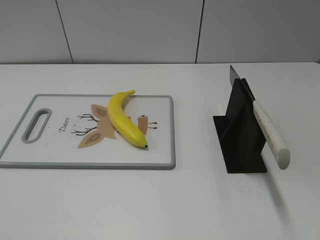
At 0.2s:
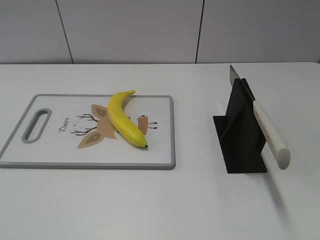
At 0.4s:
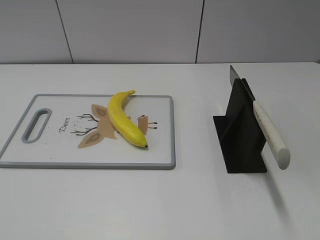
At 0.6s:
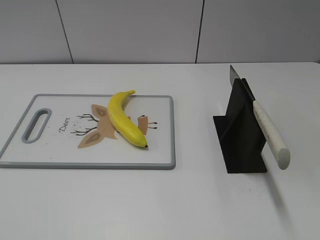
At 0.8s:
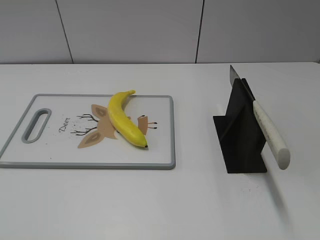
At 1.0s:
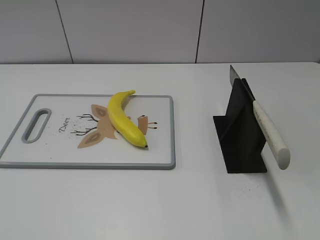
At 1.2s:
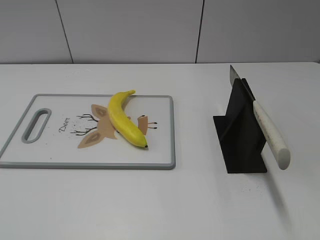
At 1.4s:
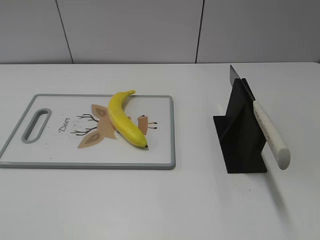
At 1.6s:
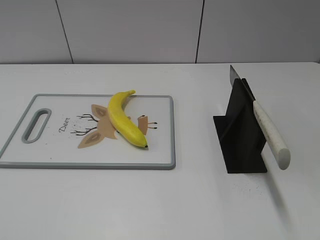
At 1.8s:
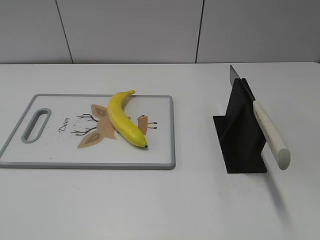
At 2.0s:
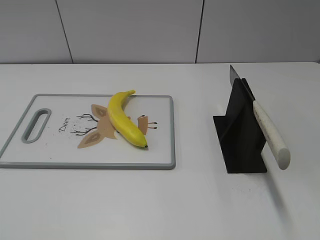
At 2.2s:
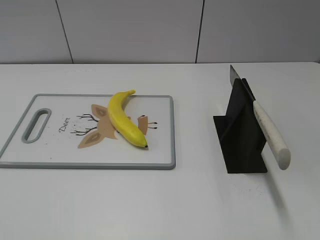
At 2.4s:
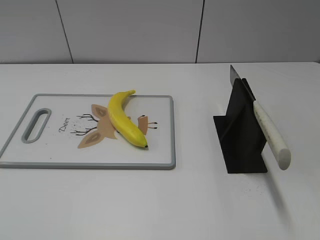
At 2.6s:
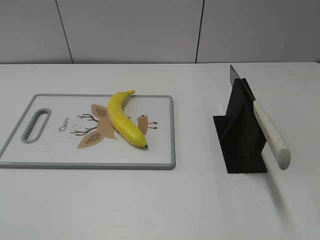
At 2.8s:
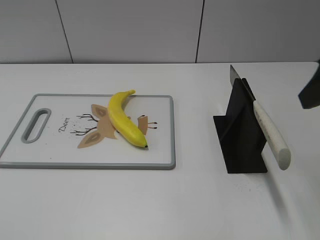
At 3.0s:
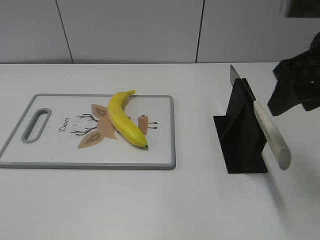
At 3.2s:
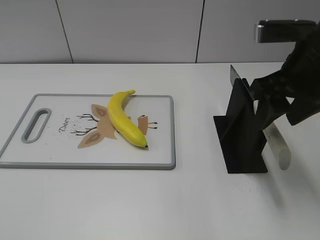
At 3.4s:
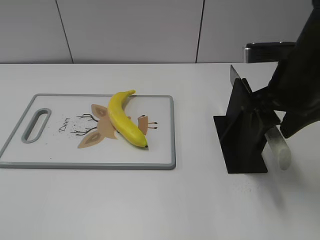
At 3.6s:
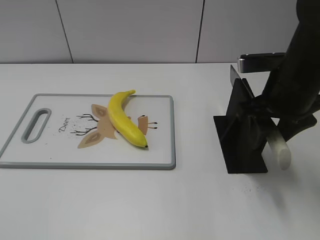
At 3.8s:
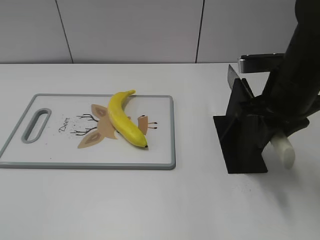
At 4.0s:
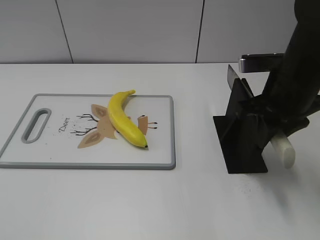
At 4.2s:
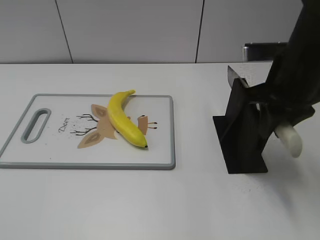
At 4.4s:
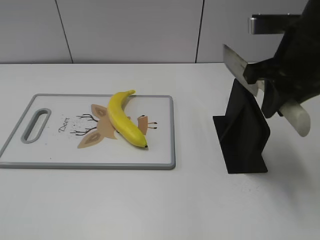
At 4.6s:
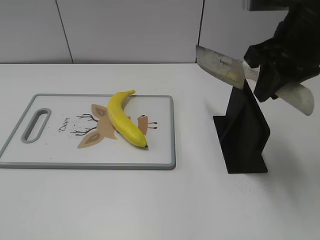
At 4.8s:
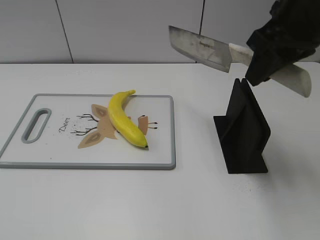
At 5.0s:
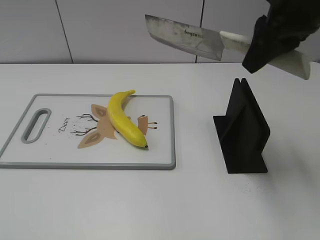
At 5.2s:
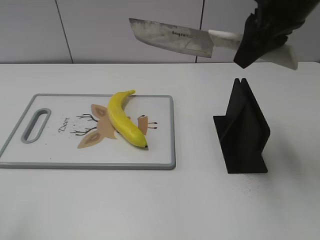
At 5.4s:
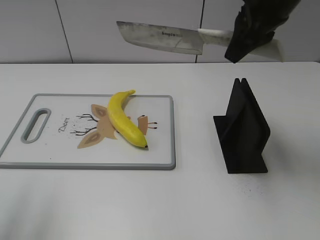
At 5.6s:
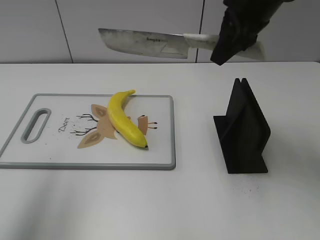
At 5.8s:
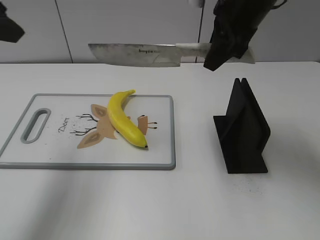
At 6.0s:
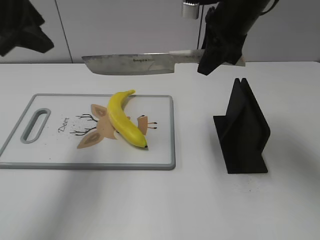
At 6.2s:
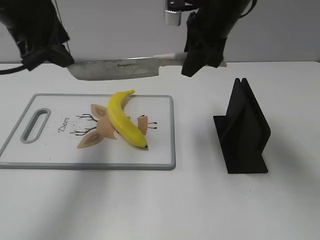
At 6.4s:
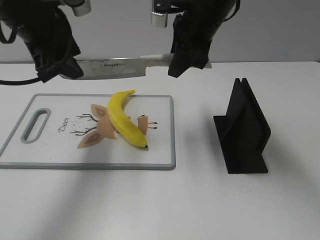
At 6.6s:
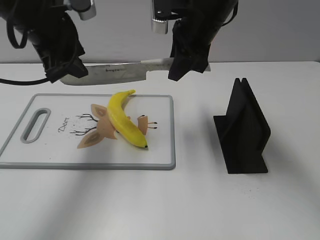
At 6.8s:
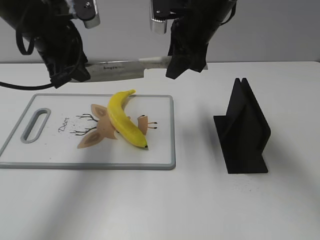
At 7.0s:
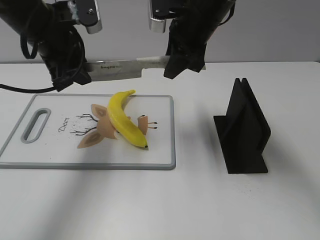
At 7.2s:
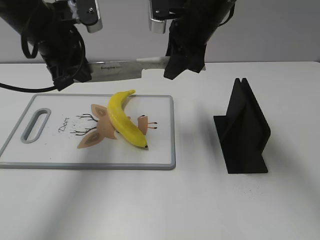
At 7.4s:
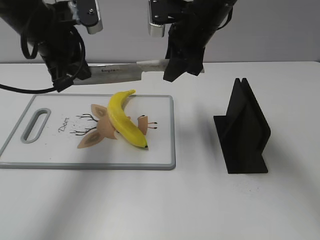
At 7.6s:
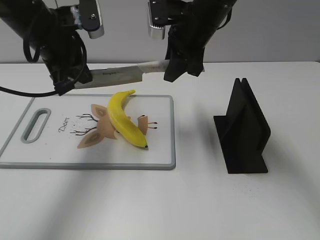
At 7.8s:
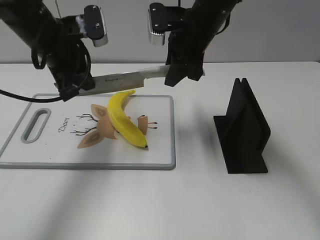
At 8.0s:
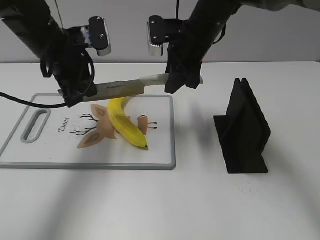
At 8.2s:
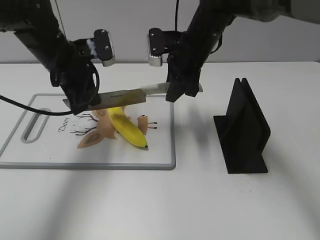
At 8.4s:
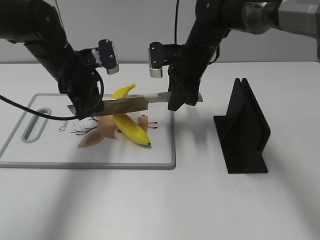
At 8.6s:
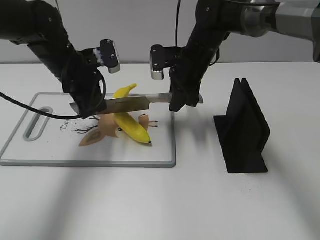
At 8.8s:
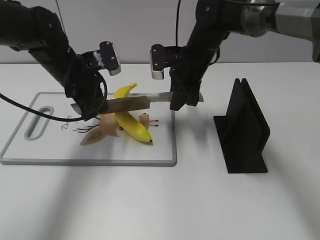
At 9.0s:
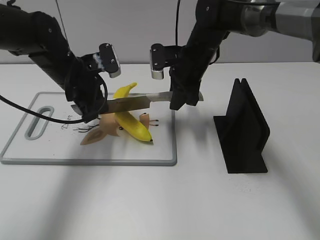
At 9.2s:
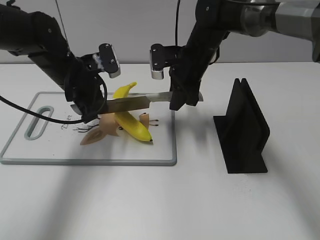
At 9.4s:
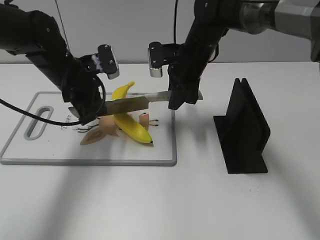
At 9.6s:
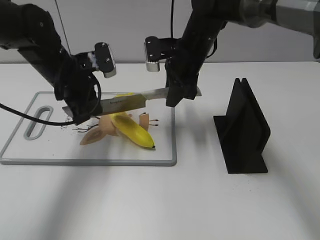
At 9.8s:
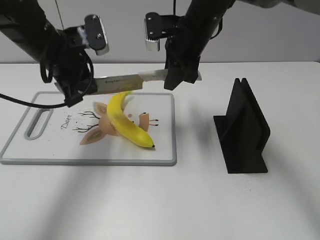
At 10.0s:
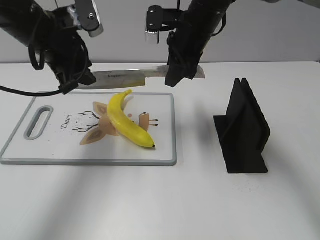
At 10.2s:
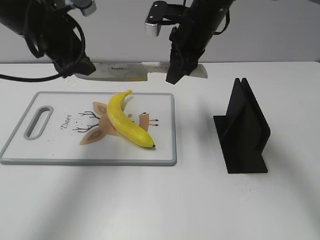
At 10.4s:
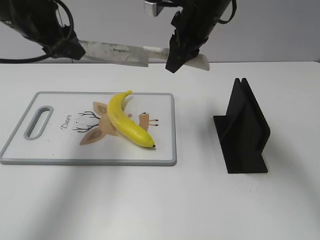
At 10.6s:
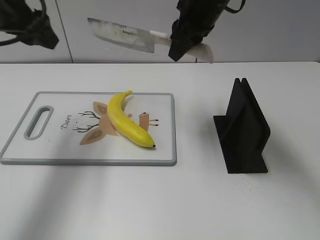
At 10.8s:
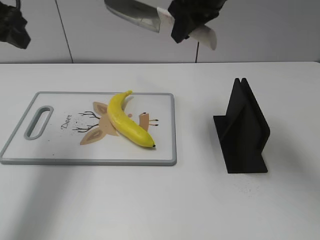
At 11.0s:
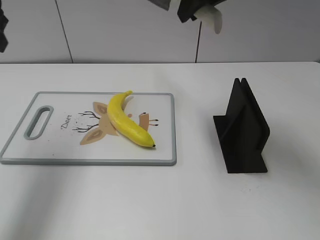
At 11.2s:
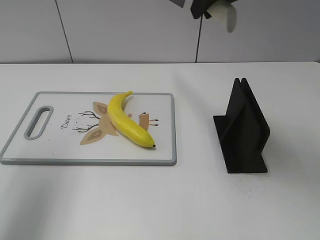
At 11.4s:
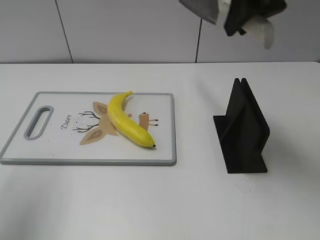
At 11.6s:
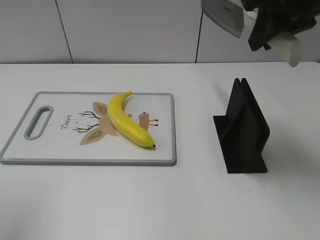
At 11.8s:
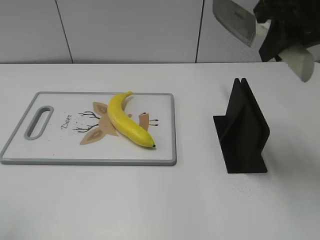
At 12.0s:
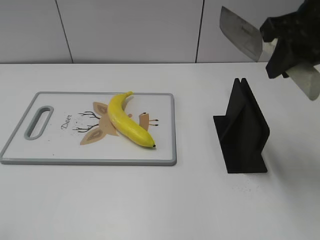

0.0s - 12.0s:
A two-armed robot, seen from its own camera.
Task of the whole recording: cut plastic banana.
Step, 0.0s - 4.6s: Grab the knife handle with your right hand.
Step, 5.0s - 8.8s: Lift the knife with your right hand.
Step, 9.0s - 10.2s: Cut the banana with your right hand.
1.6s - 3.0s: The right gripper moves forward, roughly 25 cm.
3.0s - 4.4s: The right gripper goes downward and returns, approximately 10 cm each way, and closes its fingers.
4.4s - 6.0s: The right gripper shifts roughly 10 cm forward and to the left. Meanwhile the left gripper goes approximately 30 cm forward.
6.0s - 7.6s: The right gripper goes approximately 5 cm to the left. Meanwhile the left gripper moves downward and forward, approximately 10 cm, and closes its fingers.
7.6s - 9.0s: The two grippers go roughly 10 cm downward.
9.0s - 10.4s: Both grippers travel together upward, about 15 cm. The left gripper opens.
10.4s - 12.0s: The right gripper shifts roughly 20 cm backward, to the right and upward; the left gripper heads backward and to the left, covering some 30 cm.

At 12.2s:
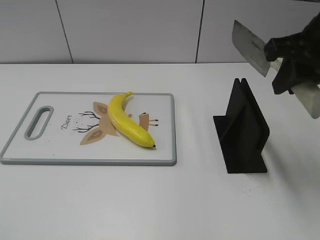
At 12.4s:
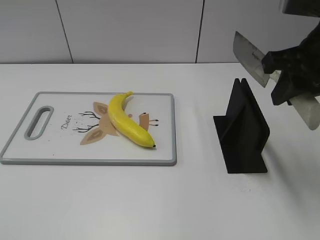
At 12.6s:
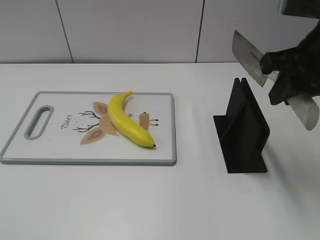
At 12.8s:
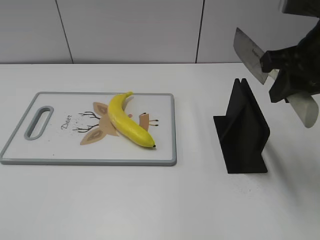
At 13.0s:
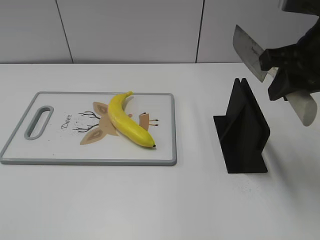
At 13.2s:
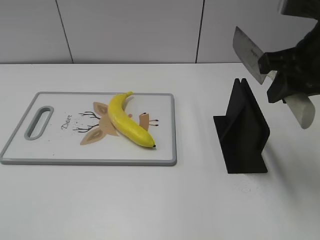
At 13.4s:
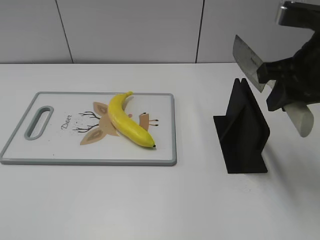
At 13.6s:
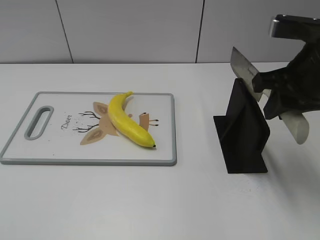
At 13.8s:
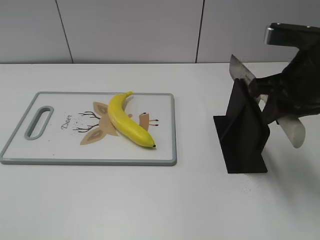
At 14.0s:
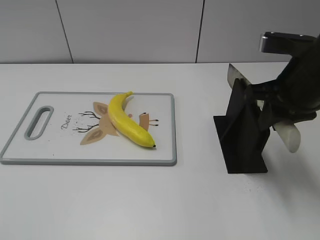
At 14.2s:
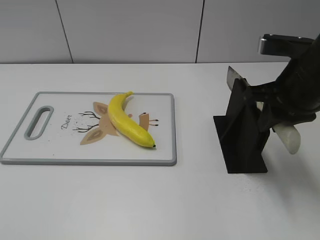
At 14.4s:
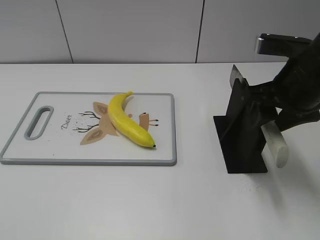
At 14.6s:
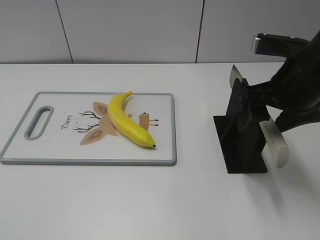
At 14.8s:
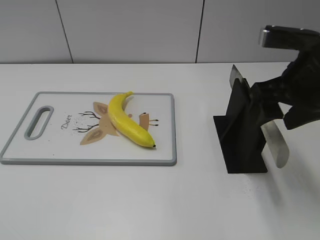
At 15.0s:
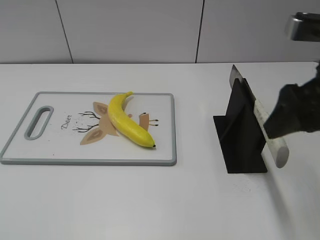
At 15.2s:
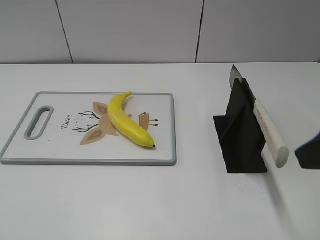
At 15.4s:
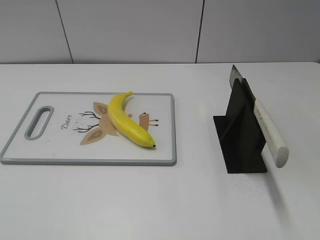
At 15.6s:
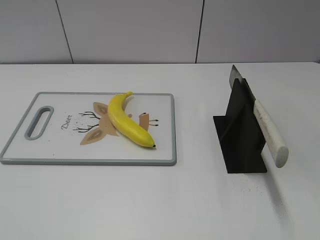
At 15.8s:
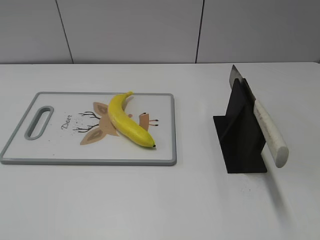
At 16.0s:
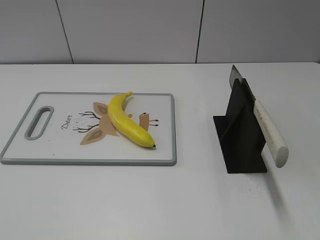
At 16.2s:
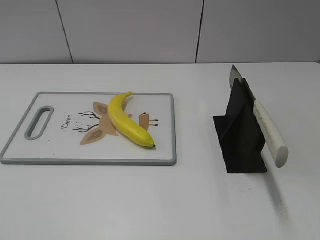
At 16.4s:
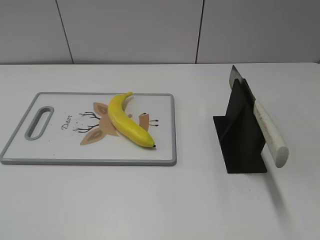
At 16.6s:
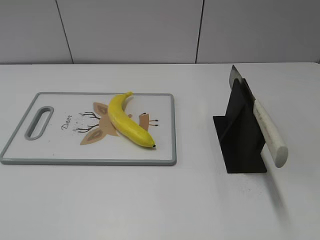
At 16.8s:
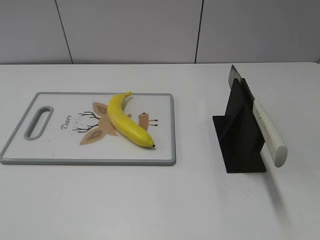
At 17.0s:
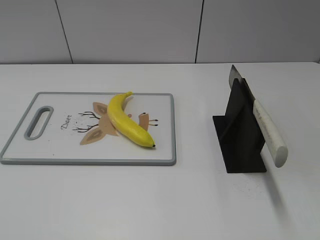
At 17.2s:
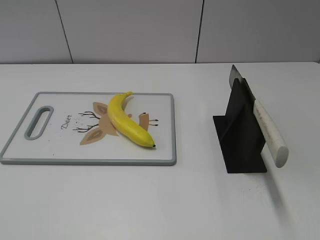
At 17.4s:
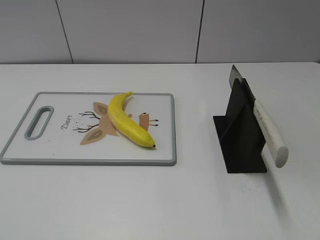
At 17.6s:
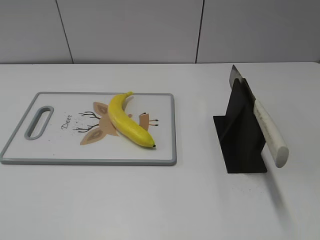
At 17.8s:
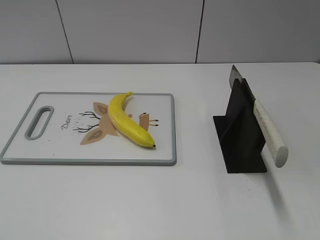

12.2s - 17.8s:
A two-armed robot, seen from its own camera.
Task of the whole recording: cut plastic banana.
Step, 12.6s - 17.8s: Place the knife on the storage rack with your right hand.
13.6s - 15.0s: The right gripper ends up about 5 cm from where it was, and opens.
15.0s - 16.4s: The right gripper heads backward and to the right, covering about 25 cm.

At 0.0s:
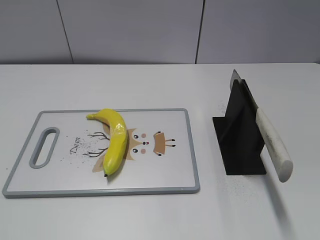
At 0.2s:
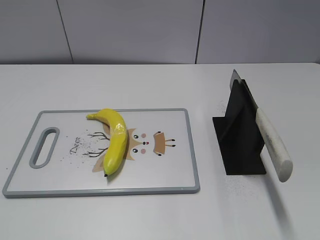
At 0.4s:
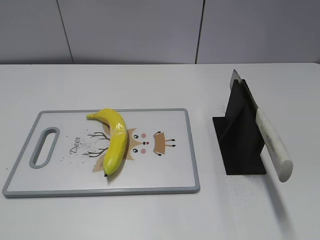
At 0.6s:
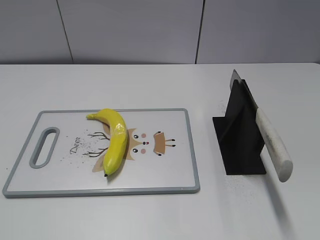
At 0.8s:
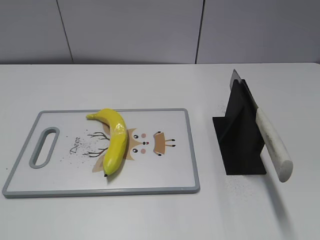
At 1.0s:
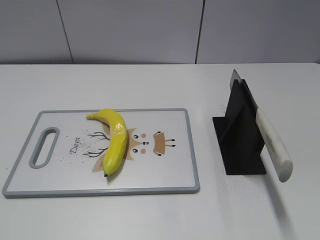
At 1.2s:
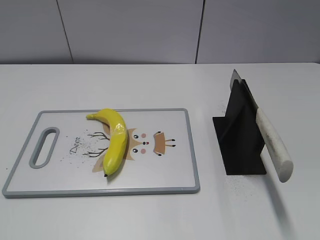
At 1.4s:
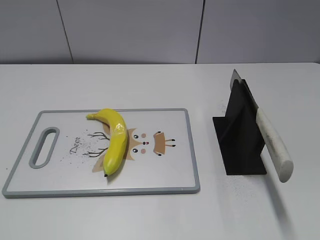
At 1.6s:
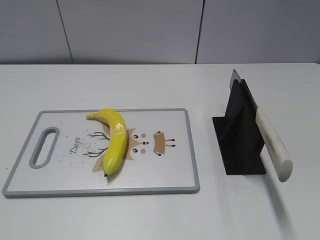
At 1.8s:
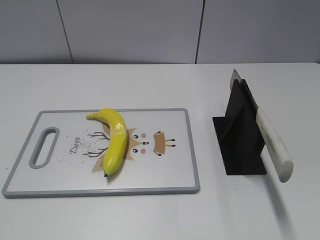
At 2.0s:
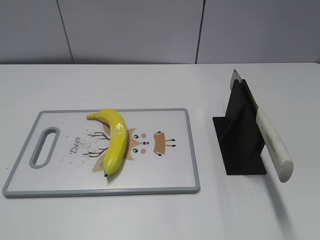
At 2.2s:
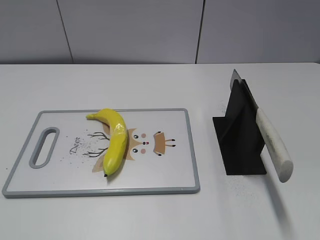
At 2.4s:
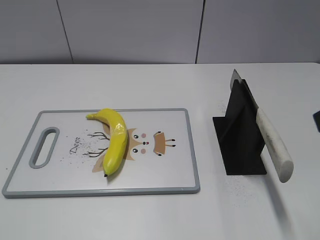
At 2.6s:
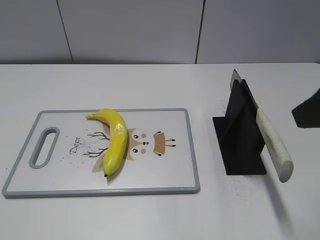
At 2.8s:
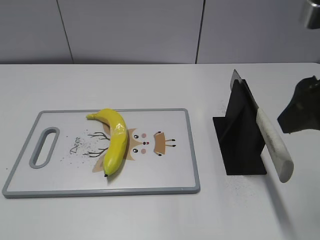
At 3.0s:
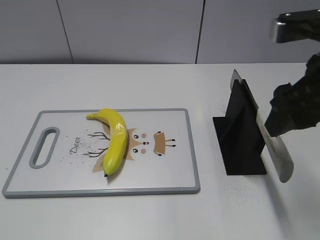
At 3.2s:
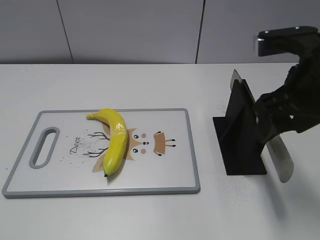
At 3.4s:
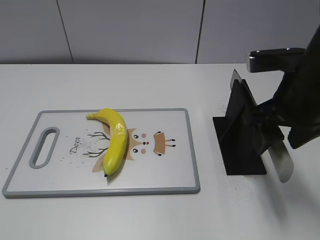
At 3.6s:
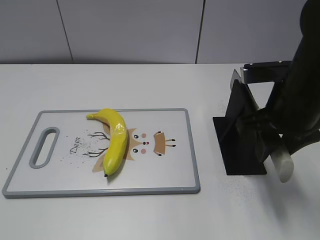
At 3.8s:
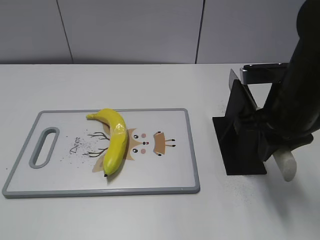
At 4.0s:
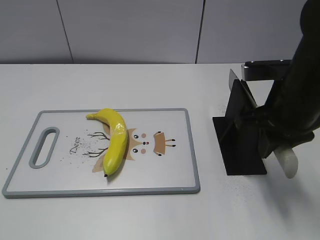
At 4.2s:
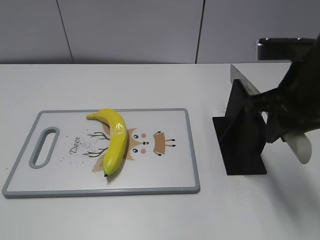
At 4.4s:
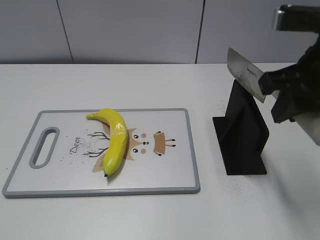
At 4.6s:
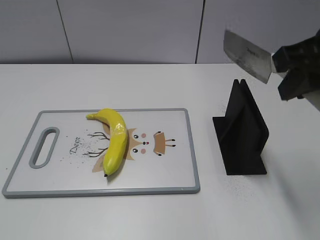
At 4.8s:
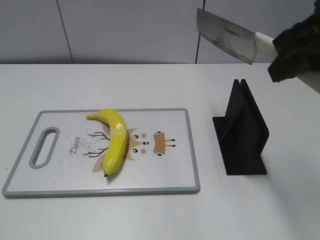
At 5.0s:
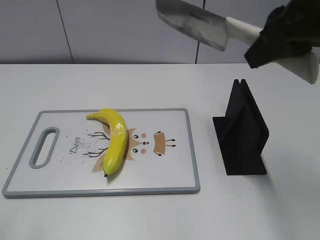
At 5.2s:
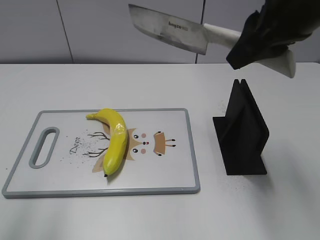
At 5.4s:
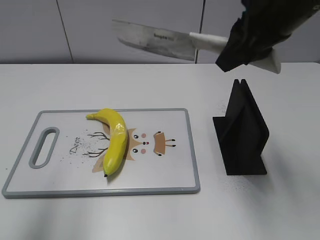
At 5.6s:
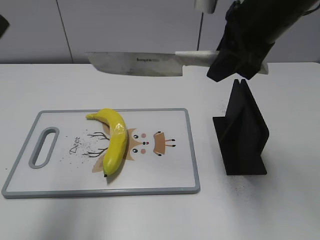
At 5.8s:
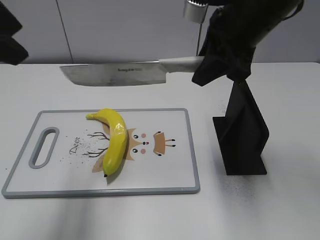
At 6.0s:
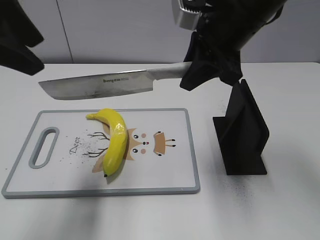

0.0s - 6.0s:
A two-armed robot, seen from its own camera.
Task of the whole recording: cut plastic banana.
Step, 0.0s - 4.6s: Grab the knife handle with your right hand.
1.6s - 3.0s: The right gripper is displaced forward and to the left by roughly 25 cm.
3.0s - 4.4s: The right gripper goes downward and returns, about 5 cm each way, and closes.
4.4s - 6.0s: The left gripper heads forward and to the right, covering some 30 cm, while the right gripper travels forward and to the left by about 15 cm.
